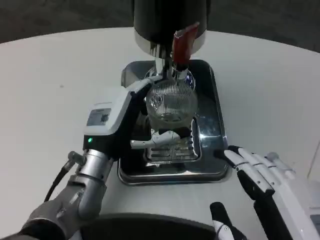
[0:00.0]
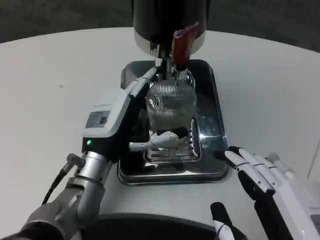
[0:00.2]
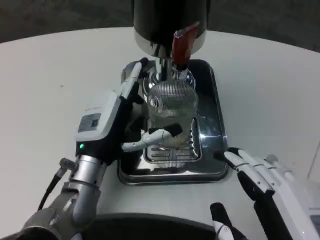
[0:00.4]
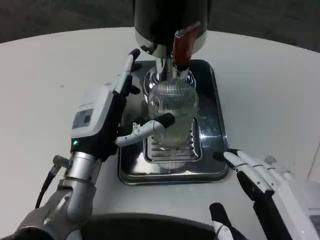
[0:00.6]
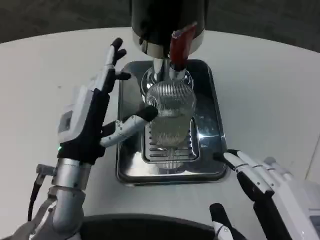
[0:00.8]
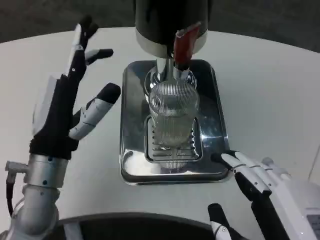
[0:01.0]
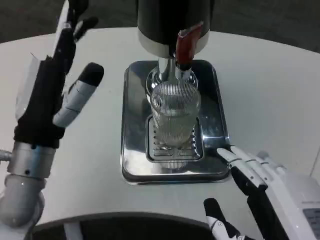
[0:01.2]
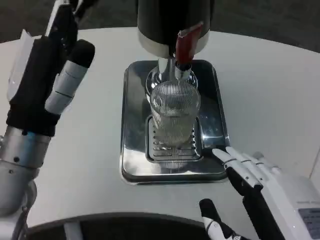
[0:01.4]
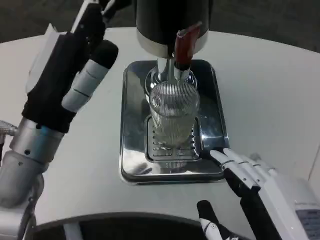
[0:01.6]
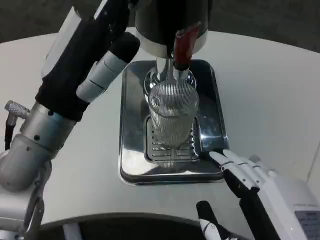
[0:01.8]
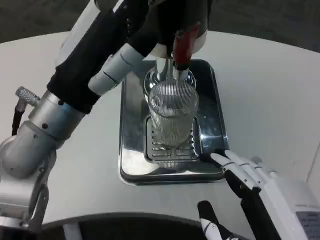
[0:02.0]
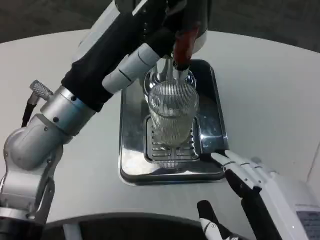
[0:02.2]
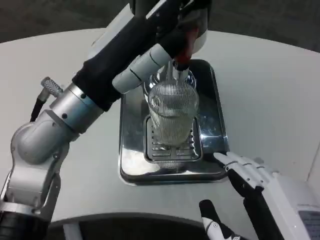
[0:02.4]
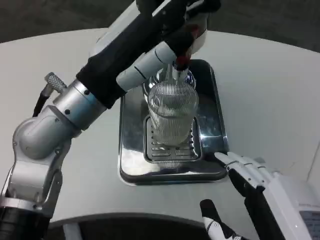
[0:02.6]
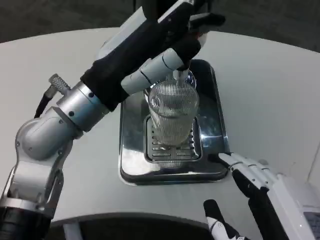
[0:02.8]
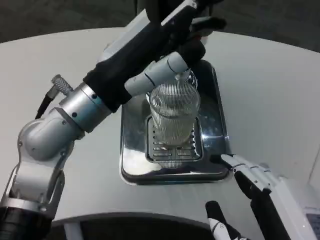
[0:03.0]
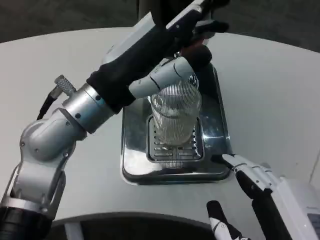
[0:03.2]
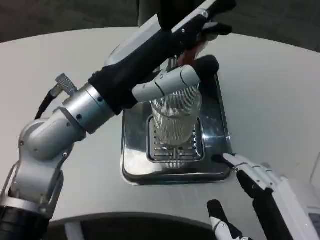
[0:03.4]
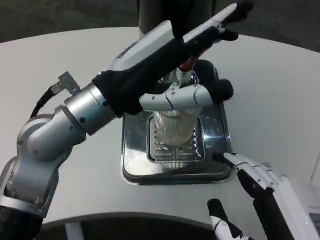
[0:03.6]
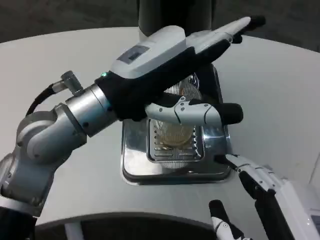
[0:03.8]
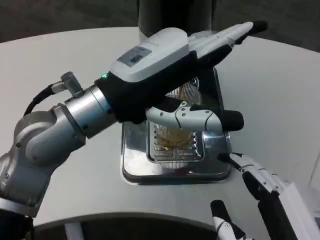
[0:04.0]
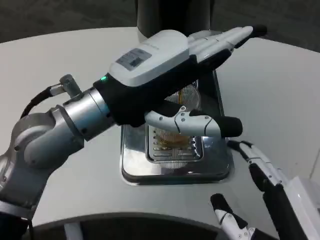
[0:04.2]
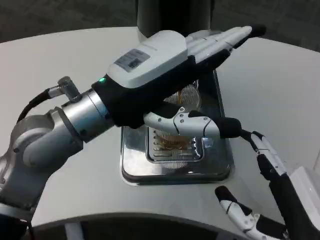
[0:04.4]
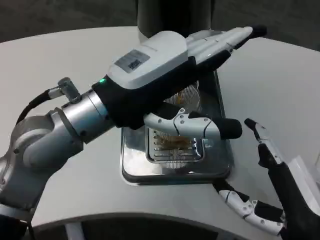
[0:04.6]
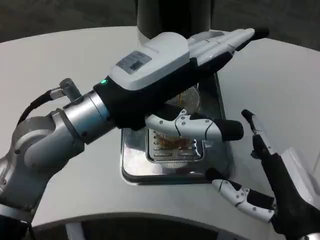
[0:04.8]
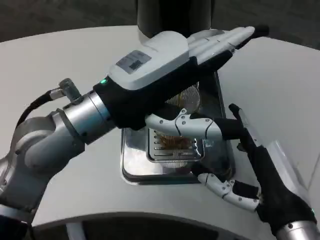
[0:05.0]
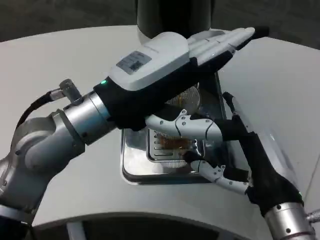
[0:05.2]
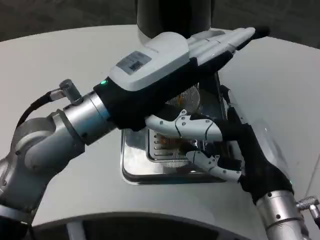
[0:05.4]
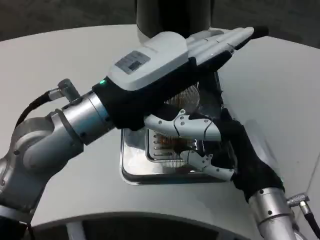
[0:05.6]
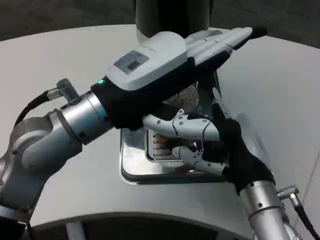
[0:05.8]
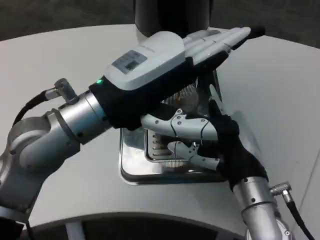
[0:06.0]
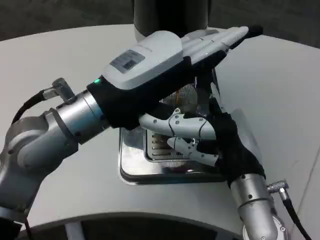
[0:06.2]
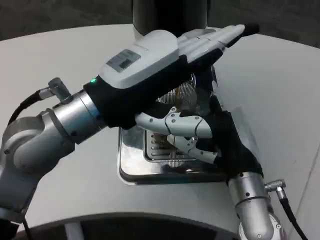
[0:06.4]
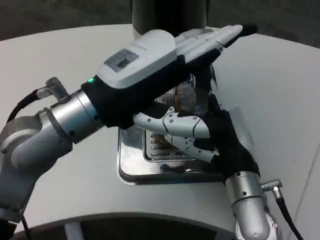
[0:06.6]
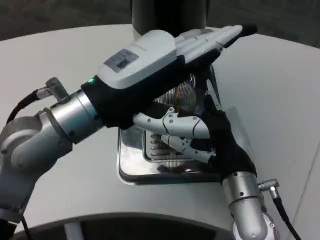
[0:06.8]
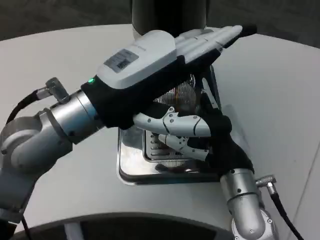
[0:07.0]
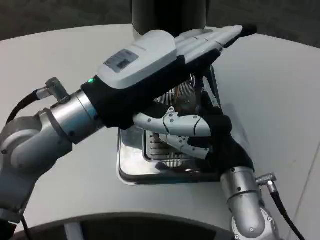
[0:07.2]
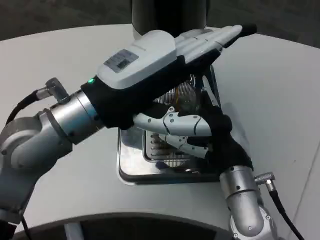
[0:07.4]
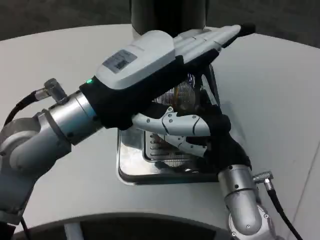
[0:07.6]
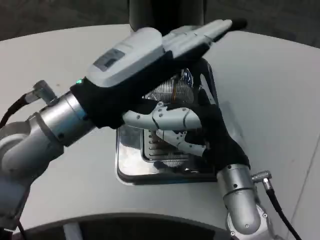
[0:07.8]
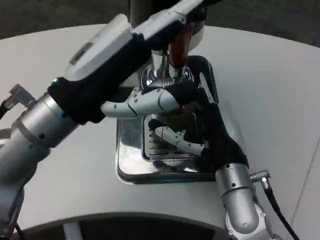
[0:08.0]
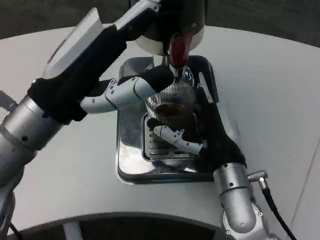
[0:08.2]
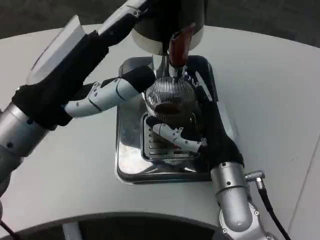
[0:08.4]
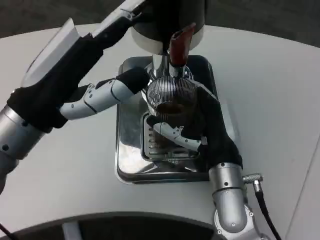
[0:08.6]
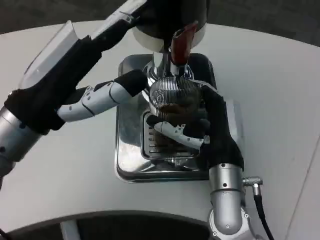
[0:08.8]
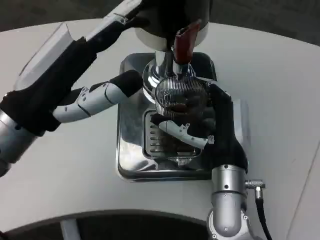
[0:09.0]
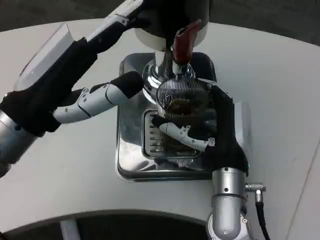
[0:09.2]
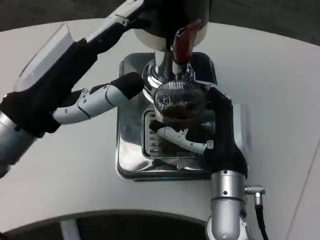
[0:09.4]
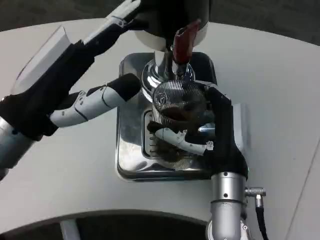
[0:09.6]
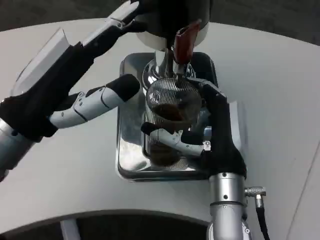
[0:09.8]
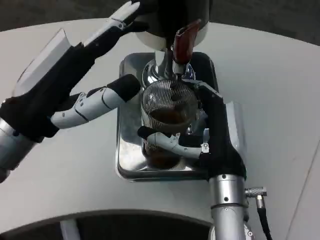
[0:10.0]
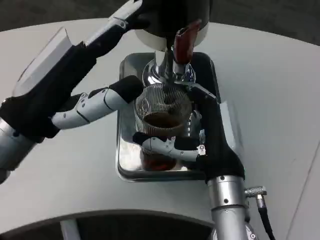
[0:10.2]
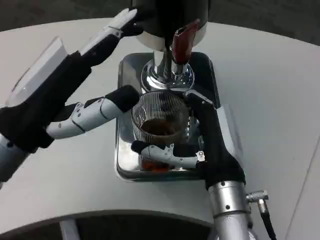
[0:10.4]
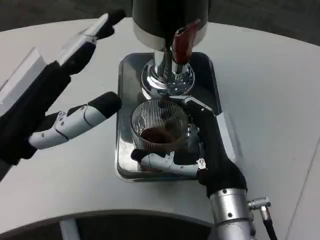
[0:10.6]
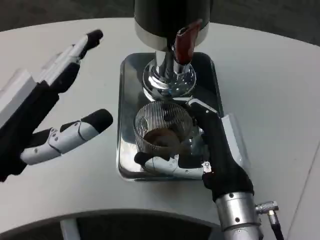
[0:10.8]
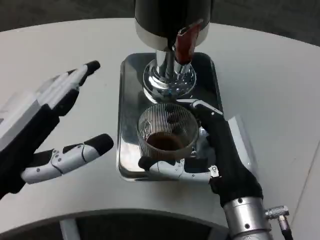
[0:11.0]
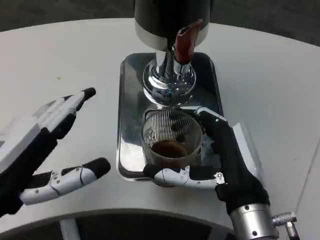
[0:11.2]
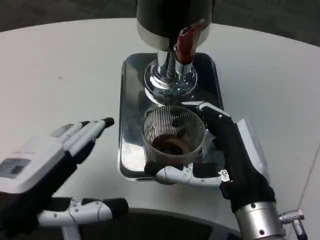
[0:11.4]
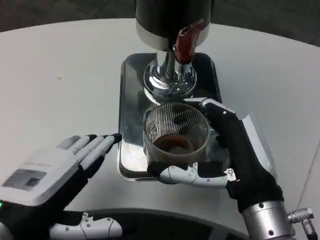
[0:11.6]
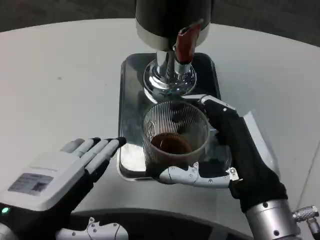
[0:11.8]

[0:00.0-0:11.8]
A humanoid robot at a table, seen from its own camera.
Task of the whole recording: Grasp the cup under the faucet to collect the drink, then remove the cup.
0:00.0 to 0:01.4: The left hand heads upward, backward and to the left, covering approximately 10 cm.
0:01.4 to 0:03.0: The left hand ends up approximately 5 cm from where it was.
0:04.4 to 0:06.0: The right hand is displaced forward by roughly 15 cm.
0:07.4 to 0:08.8: The left hand moves to the left, some 5 cm.
0:10.4 to 0:11.8: The right hand travels backward by some 5 cm. Meanwhile the left hand is displaced backward and downward by roughly 10 cm.

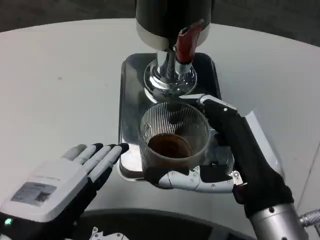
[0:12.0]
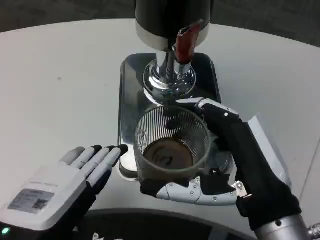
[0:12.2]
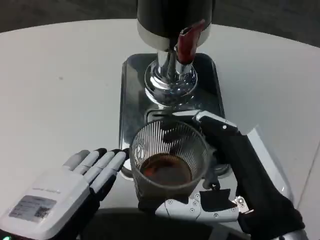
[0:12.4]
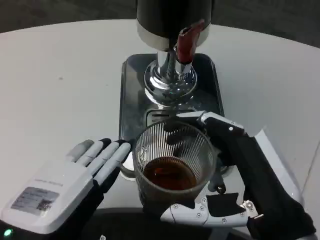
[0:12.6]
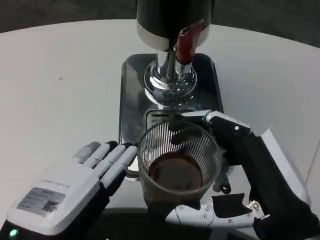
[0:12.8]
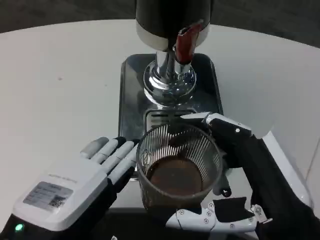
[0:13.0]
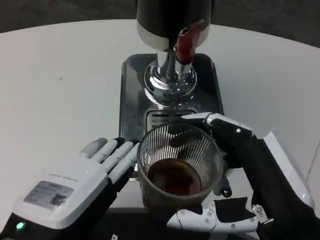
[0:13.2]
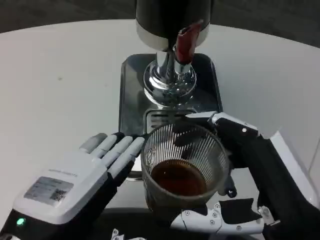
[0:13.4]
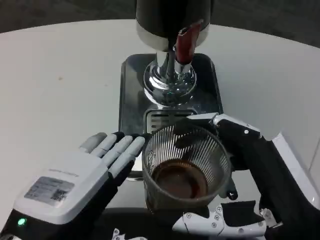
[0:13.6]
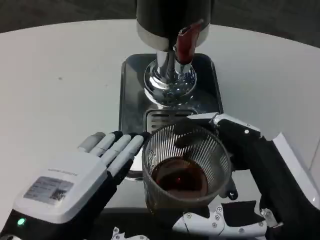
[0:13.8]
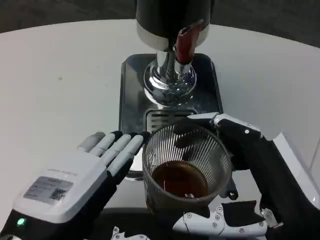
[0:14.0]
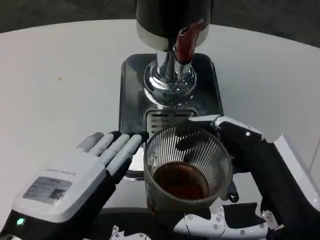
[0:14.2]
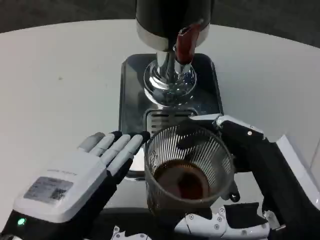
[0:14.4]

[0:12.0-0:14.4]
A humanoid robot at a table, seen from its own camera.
Task of the whole recording: Grasp the cup under the faucet to collect the drink, then remove the cup.
0:12.0 to 0:13.2: The right hand heads backward, covering roughly 5 cm.
0:13.2 to 0:14.4: Both hands stay put.

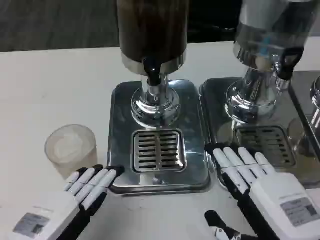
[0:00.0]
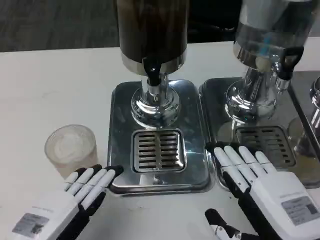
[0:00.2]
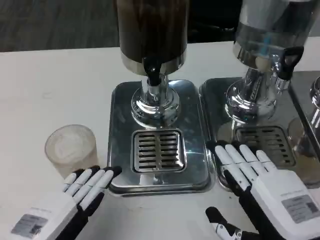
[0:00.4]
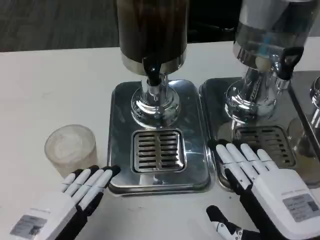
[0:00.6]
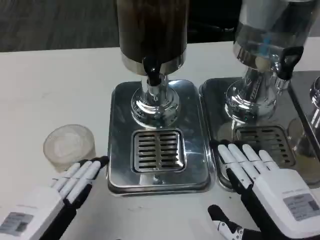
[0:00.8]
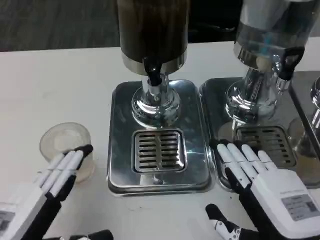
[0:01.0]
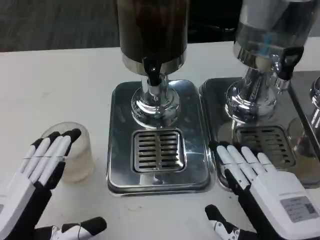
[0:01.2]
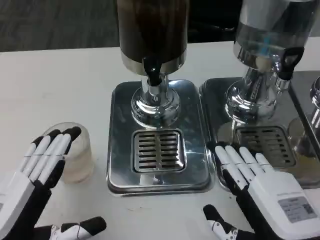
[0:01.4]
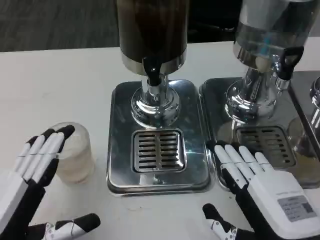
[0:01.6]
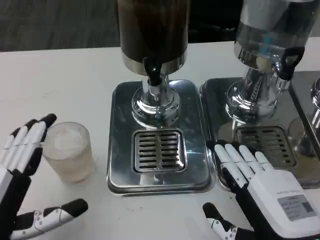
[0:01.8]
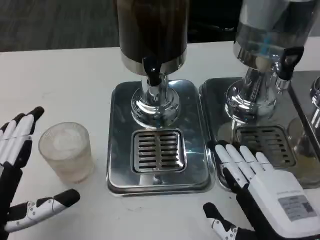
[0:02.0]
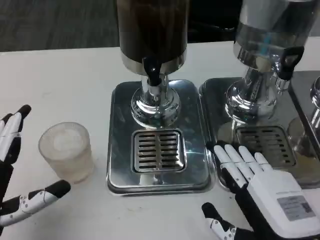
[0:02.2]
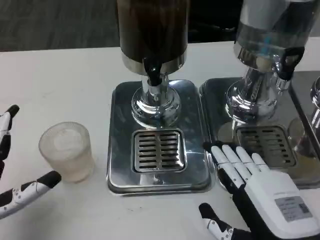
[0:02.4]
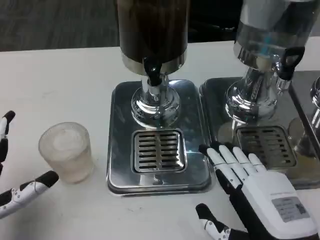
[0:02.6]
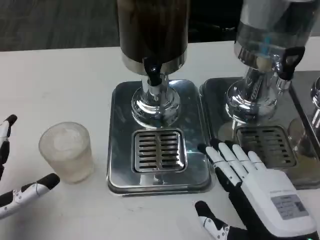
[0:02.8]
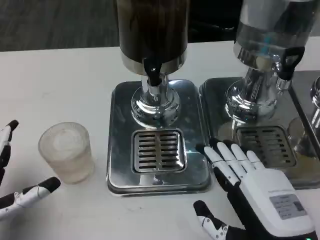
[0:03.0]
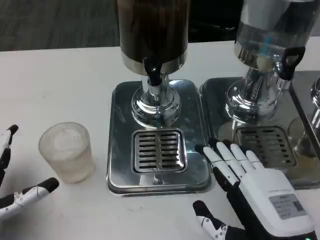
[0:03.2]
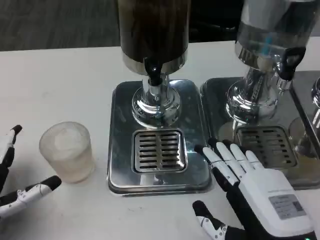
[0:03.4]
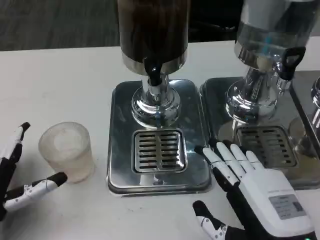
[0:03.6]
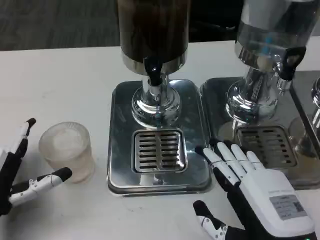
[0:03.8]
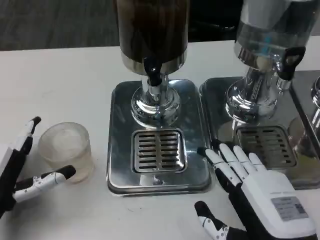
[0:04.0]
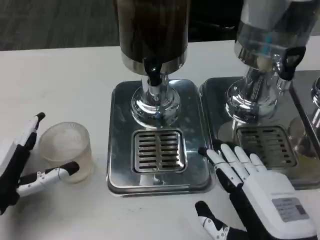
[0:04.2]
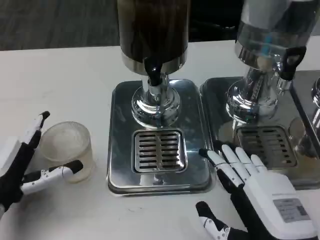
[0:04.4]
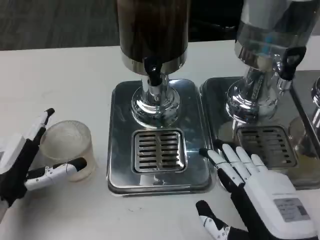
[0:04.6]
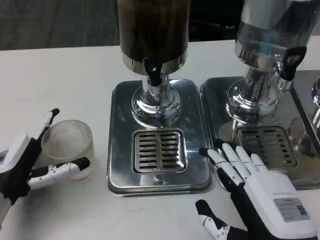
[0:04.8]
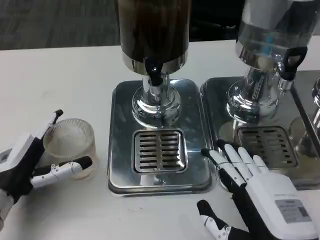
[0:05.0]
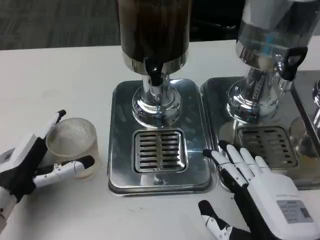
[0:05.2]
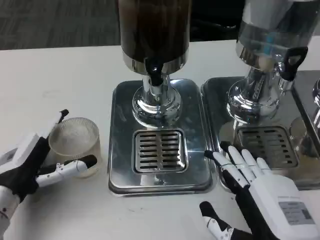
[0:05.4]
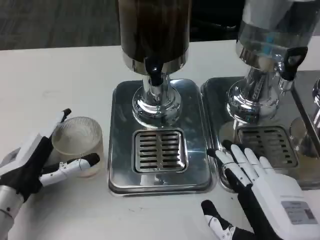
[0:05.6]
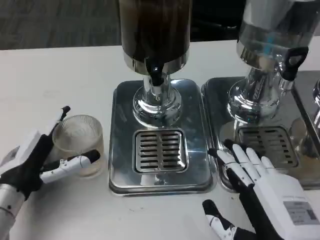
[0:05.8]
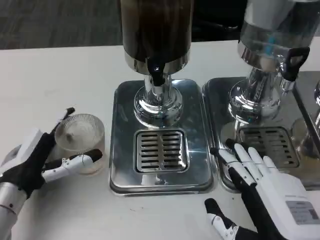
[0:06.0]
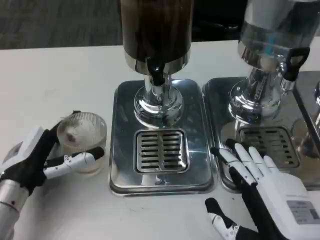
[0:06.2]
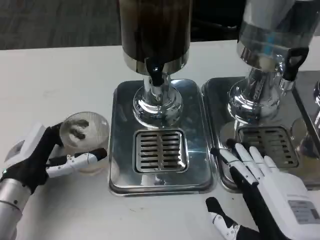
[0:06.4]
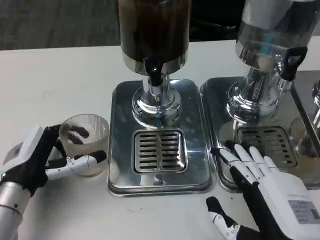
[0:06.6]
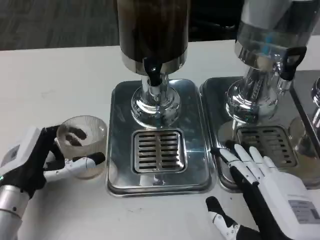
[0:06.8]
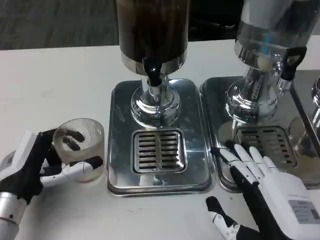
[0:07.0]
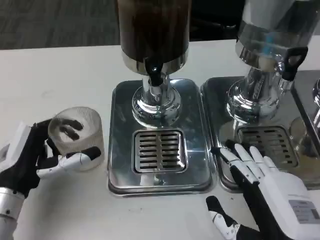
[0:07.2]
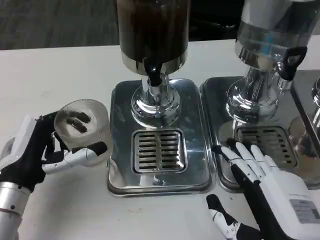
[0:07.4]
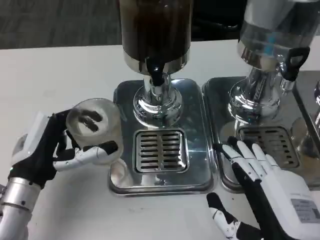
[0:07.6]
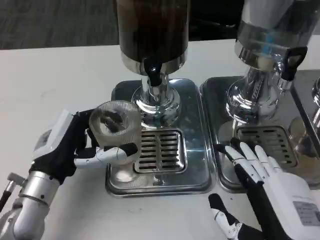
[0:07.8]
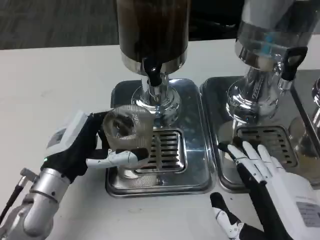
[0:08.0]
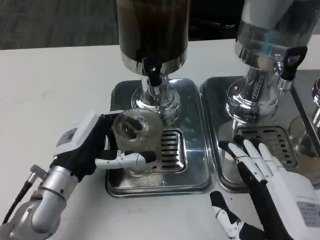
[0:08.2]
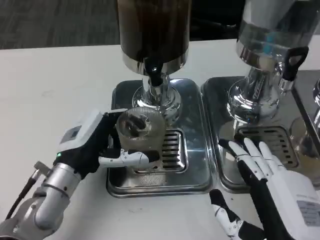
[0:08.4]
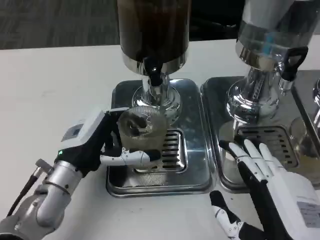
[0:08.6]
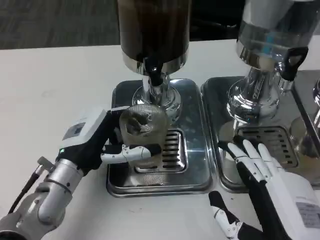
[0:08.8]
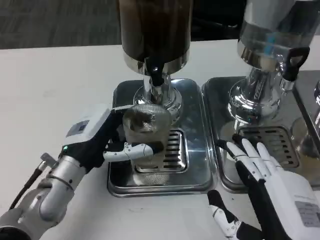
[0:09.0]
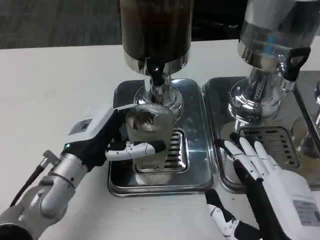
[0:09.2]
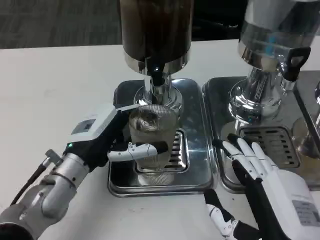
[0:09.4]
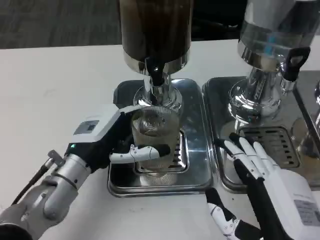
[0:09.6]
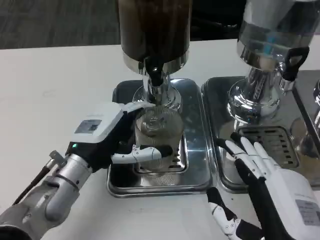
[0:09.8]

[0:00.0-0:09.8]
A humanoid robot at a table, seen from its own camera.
Task of the whole recording: Grasp the cup under the faucet to collect the drink, then remove the cup.
0:00.0 to 0:01.4: The hands make only small movements.
0:01.4 to 0:02.8: The left hand ends up roughly 5 cm from where it was.
0:02.8 to 0:04.2: The left hand travels forward by approximately 5 cm.
0:04.2 to 0:07.0: There are only small adjustments of the hands.
0:07.0 to 0:08.4: The left hand travels to the right by about 5 cm.
0:08.4 to 0:09.8: The hands make only small movements.
